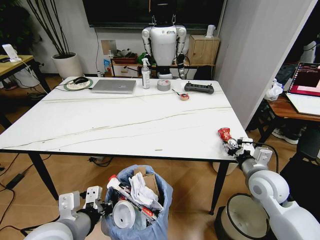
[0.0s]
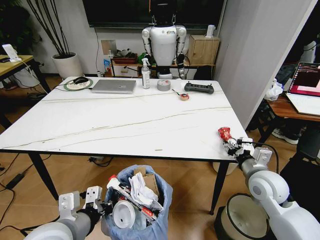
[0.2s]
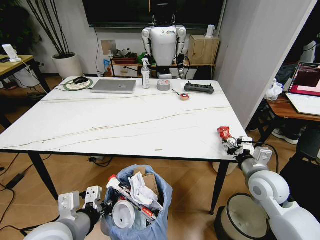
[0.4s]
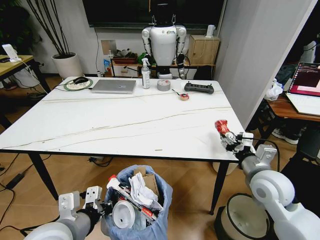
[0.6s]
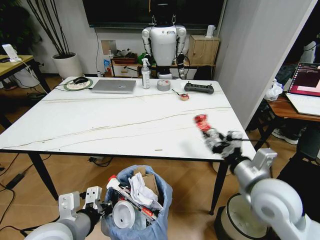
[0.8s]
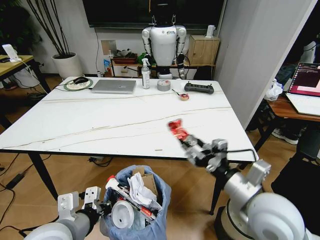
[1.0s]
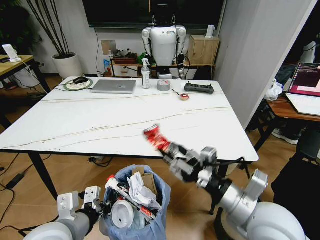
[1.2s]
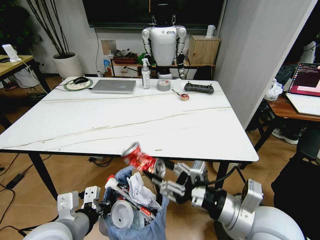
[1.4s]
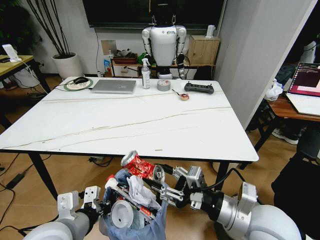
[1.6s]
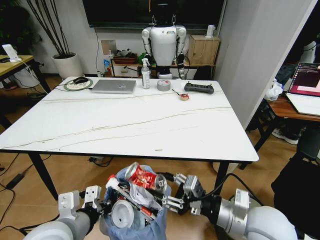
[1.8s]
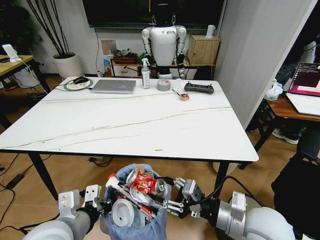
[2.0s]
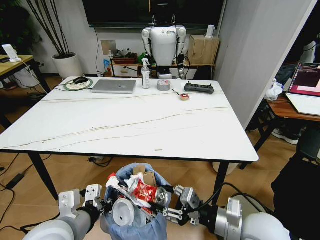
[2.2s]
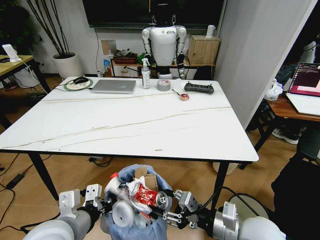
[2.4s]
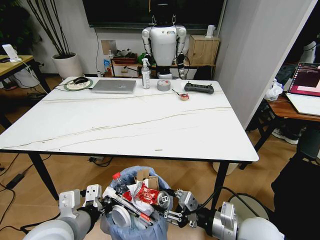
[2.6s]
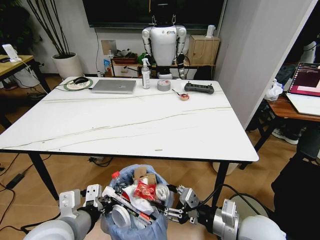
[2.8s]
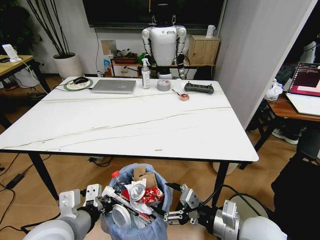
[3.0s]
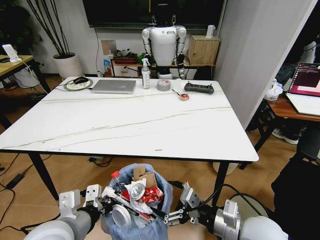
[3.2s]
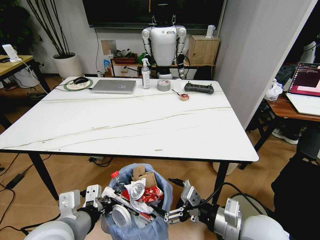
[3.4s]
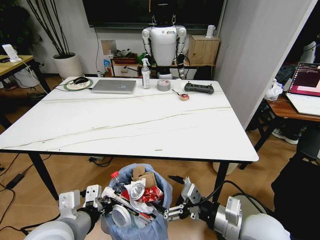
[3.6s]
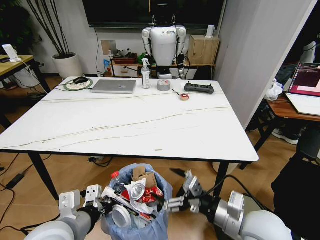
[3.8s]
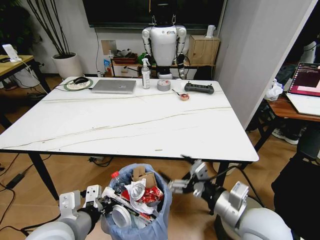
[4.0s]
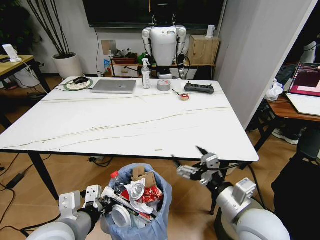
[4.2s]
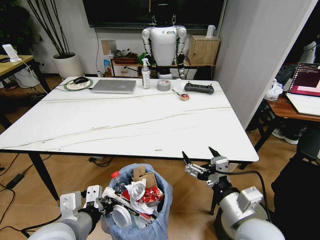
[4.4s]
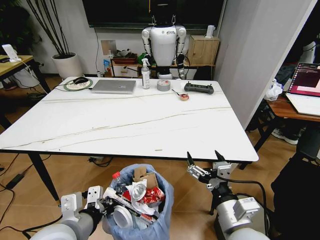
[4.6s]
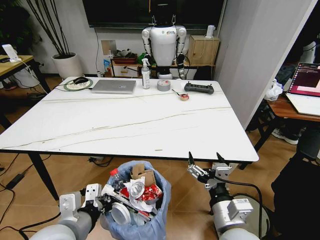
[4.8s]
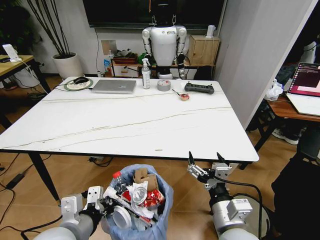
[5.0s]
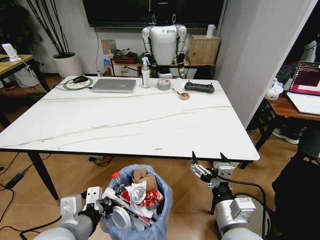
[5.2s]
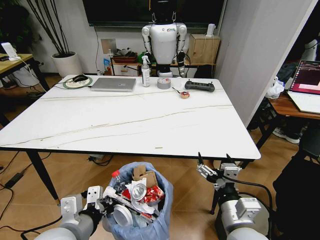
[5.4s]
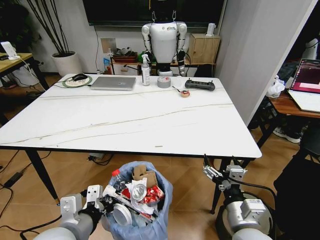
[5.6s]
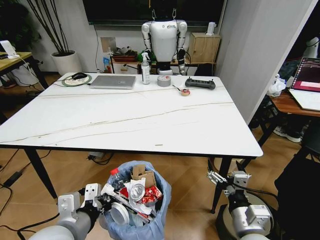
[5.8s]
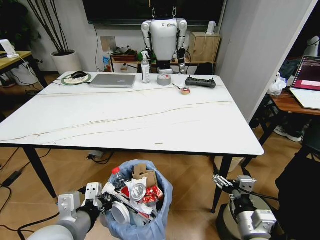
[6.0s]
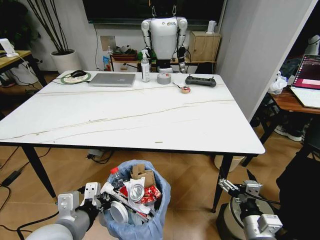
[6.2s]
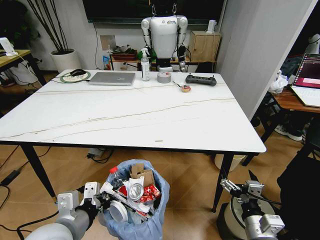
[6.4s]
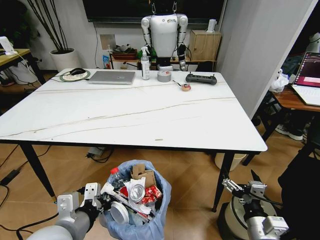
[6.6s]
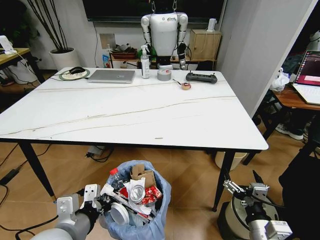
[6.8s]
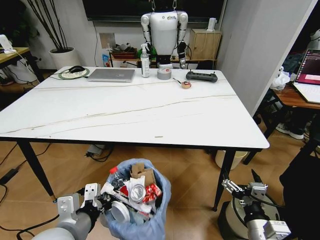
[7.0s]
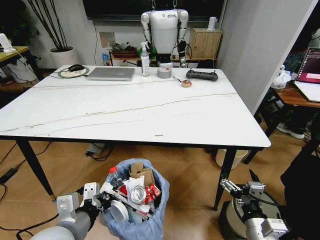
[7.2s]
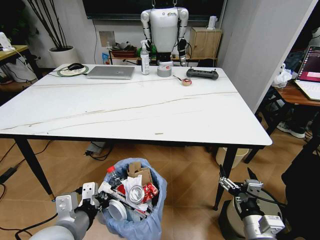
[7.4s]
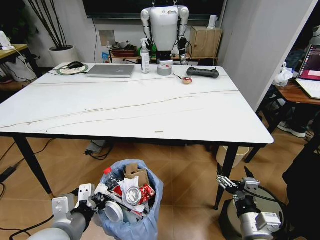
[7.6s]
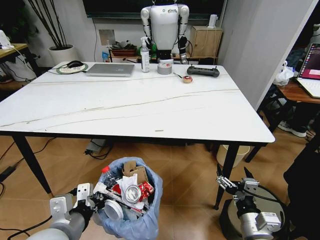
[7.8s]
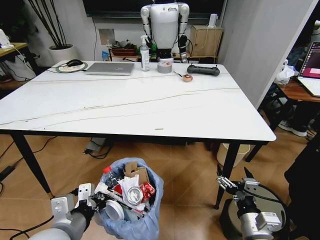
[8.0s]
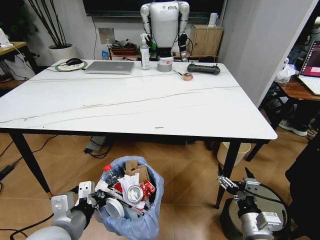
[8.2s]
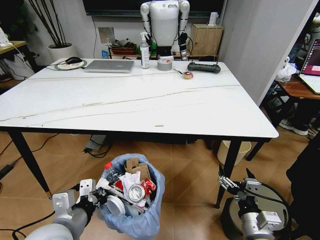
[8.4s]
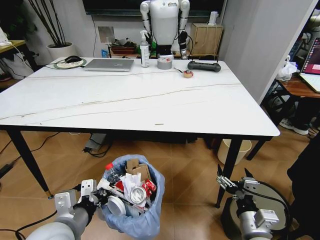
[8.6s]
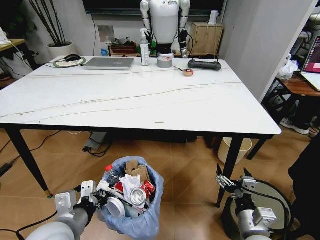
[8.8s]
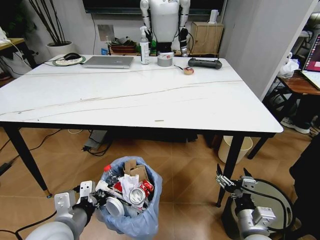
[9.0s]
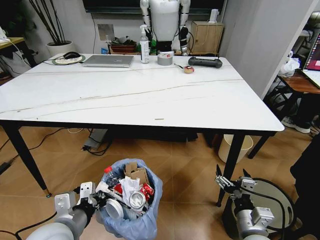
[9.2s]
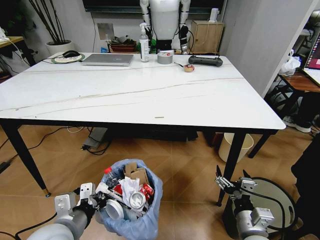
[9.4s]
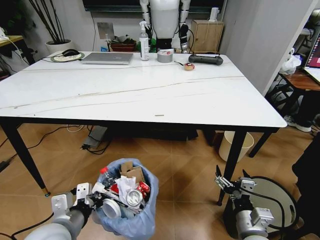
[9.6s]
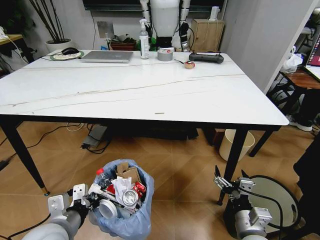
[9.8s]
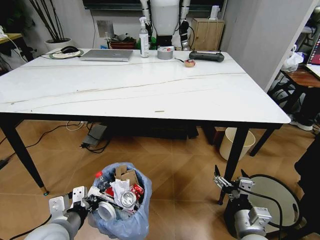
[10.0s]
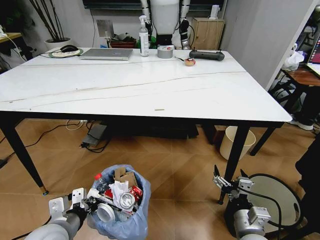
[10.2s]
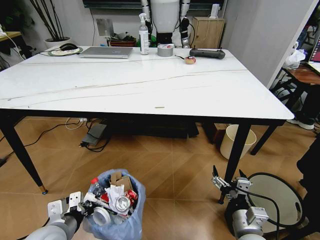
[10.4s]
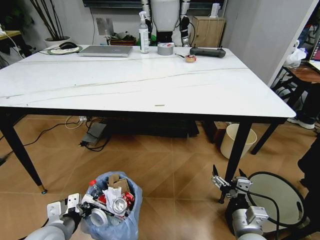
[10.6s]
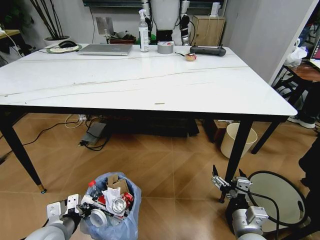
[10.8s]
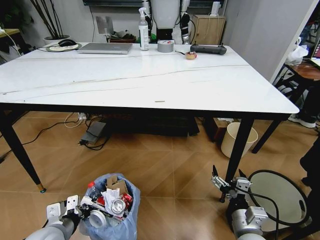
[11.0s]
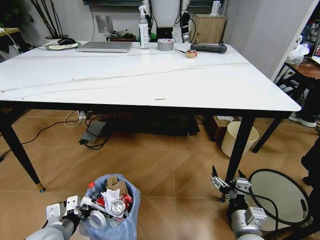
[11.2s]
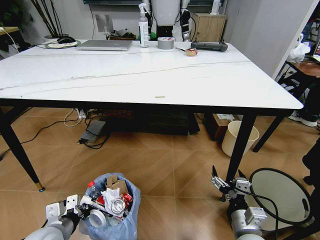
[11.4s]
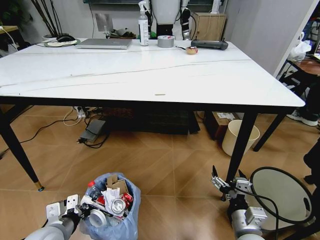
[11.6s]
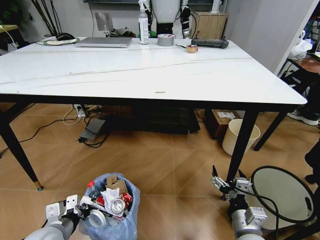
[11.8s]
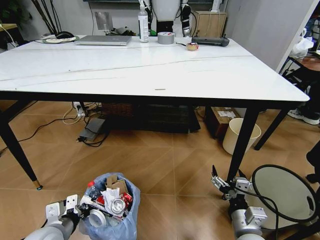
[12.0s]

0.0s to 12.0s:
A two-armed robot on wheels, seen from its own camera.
Task of the whole recording: Pick up the trash bin and place the trash from the table into it.
0.0s to 1.6s: The right gripper moves backward, to the left and upward, approximately 15 cm.
1.6s to 3.0s: The right gripper shifts roughly 5 cm downward.
4.4s to 6.0s: The right gripper shifts about 10 cm downward.
9.0s to 10.4s: The left gripper is displaced downward by about 5 cm.

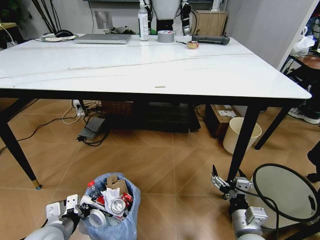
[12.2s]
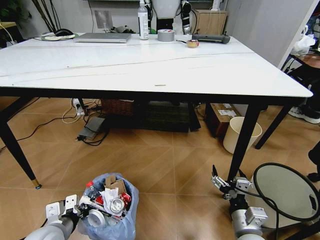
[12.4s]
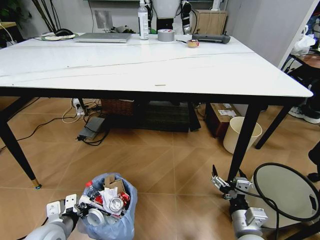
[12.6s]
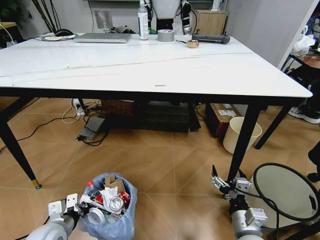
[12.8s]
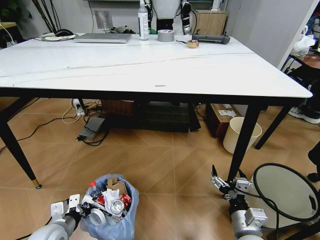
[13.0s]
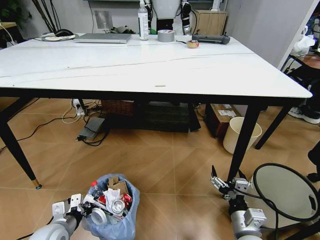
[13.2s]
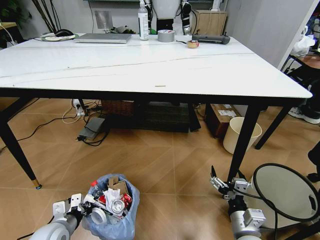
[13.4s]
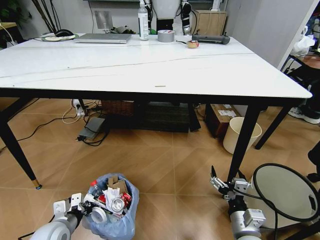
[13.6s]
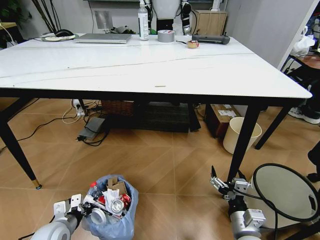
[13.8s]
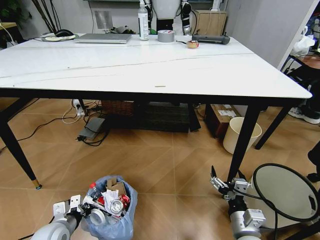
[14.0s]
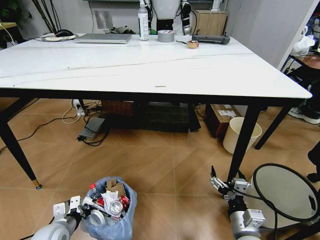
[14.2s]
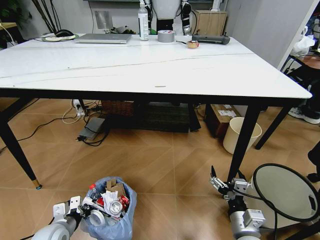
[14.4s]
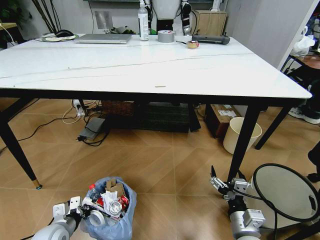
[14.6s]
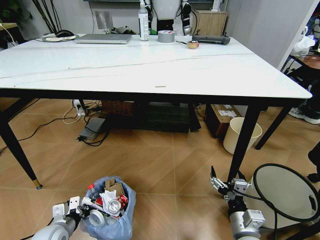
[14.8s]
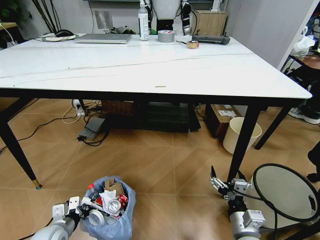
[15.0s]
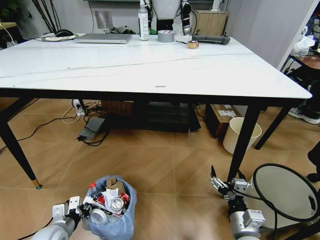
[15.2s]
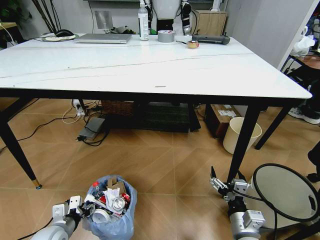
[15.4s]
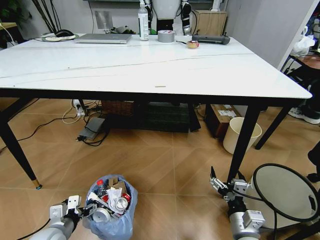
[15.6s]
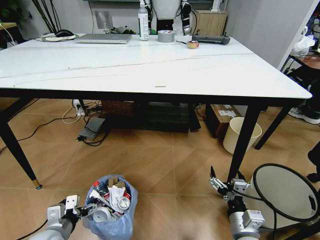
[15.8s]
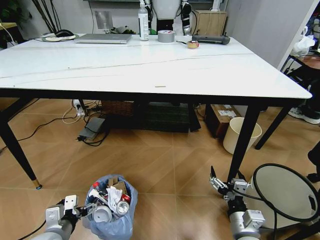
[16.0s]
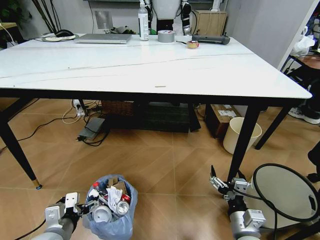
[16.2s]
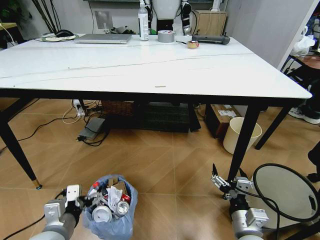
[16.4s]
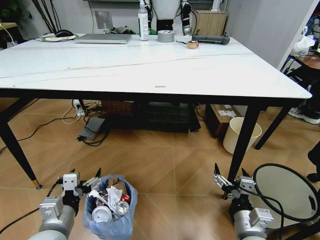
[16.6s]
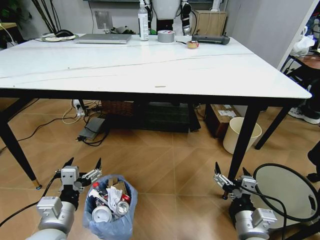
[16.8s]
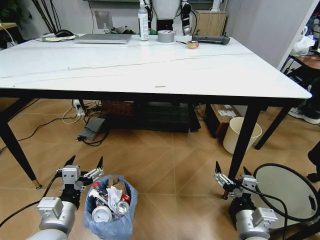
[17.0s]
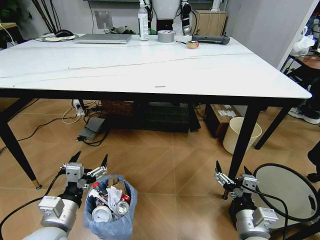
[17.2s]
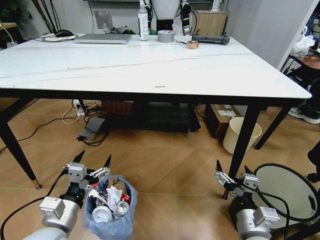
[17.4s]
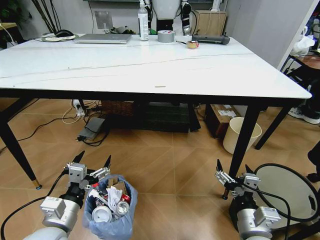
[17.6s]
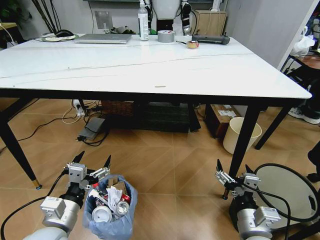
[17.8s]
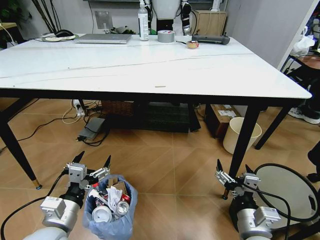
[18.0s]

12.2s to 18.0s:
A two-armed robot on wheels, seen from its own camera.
Task of the whole recording: Pick up the trash bin and place the trash from the table into it.
12.2s to 13.6s: The left gripper moves downward, approximately 5 cm.
13.6s to 15.0s: The grippers stay close to where they were, moving slightly.
15.0s to 16.6s: The left gripper travels upward and to the right by some 15 cm, and opens its fingers.
16.6s to 18.0s: The grippers stay close to where they were, moving slightly.

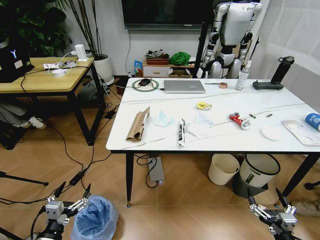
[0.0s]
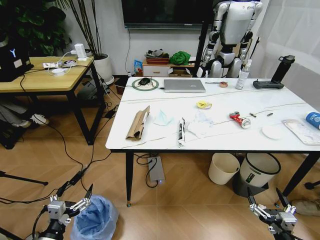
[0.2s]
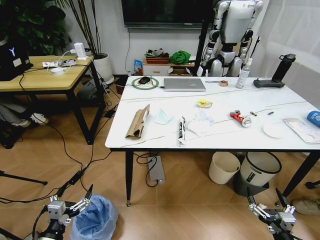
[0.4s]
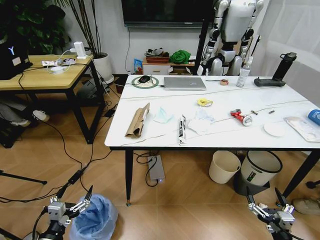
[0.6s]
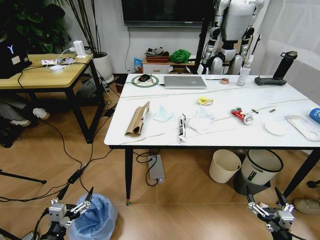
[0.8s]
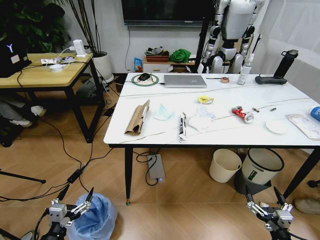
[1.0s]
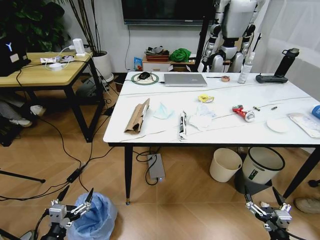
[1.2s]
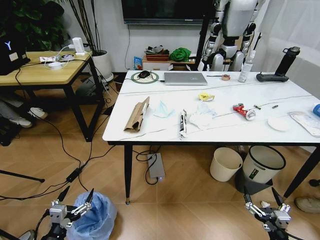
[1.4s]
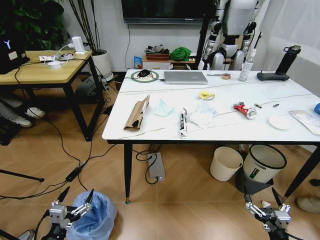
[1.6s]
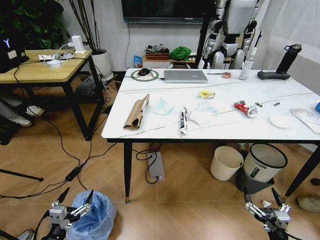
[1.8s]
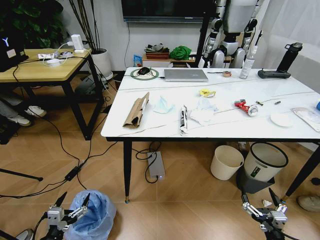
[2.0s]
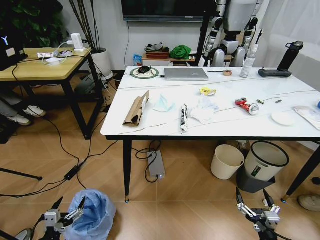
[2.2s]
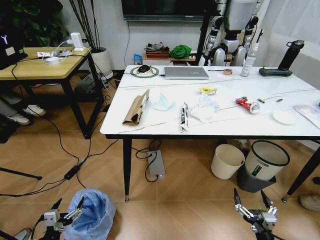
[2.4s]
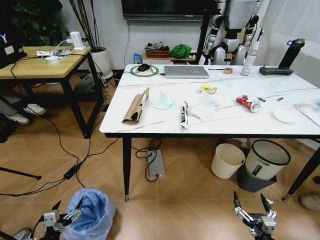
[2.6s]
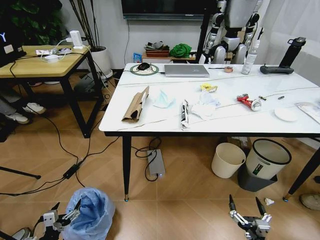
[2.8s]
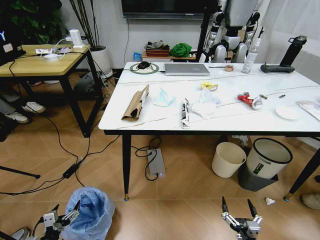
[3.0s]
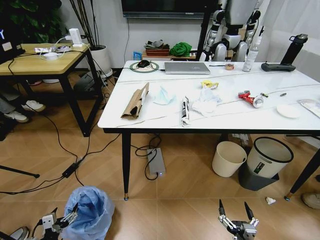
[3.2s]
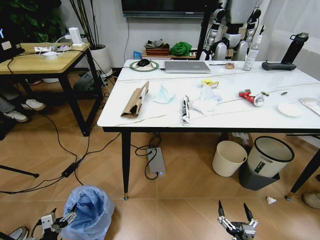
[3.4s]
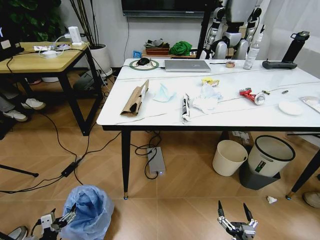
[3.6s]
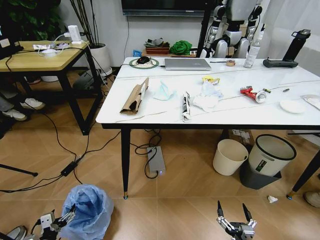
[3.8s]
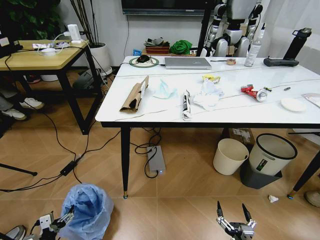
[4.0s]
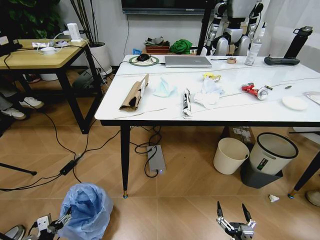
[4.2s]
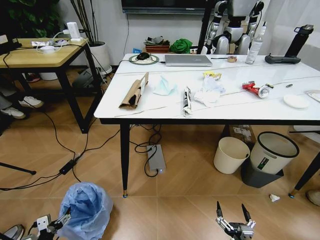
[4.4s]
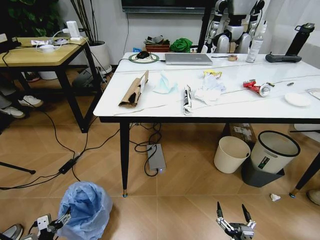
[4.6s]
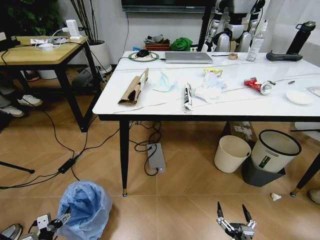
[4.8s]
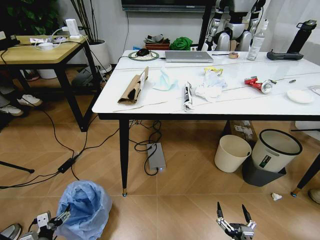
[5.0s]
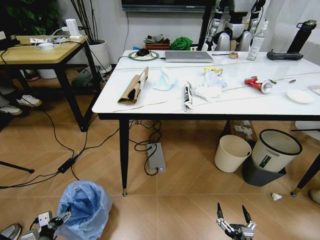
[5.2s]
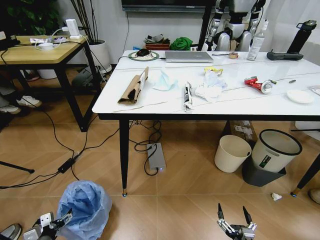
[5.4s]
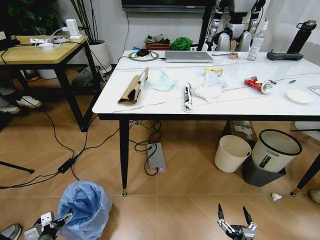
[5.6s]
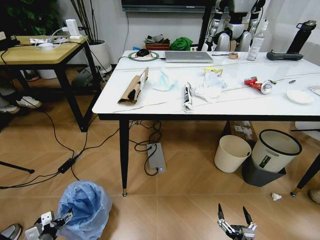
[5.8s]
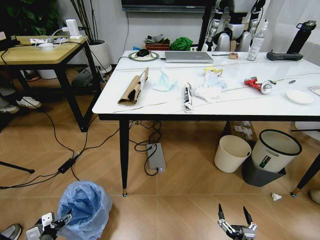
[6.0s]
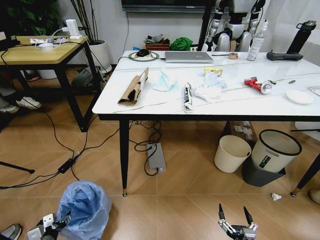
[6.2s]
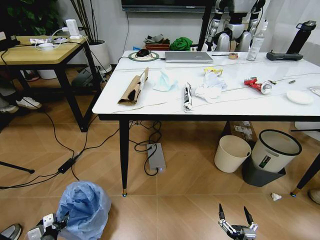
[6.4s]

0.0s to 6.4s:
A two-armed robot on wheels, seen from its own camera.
Task of the whole recording: Pick up the trash bin and place the trash from the table into it.
1.6s to 3.2s: The left gripper goes approximately 15 cm downward and to the left. Meanwhile the right gripper heads to the left and downward, covering about 10 cm.
4.8s to 6.4s: The left gripper closes its fingers.
